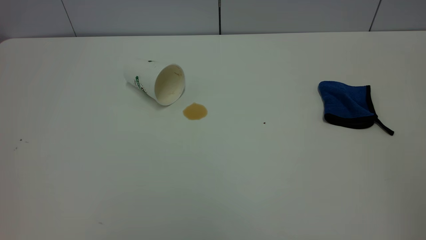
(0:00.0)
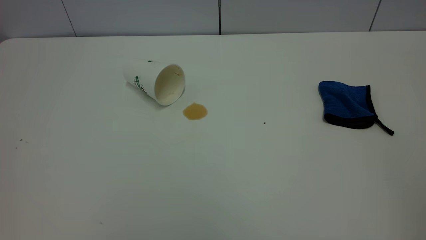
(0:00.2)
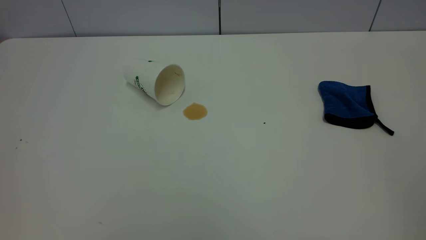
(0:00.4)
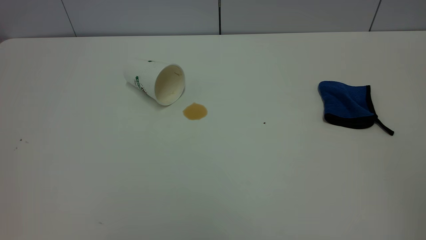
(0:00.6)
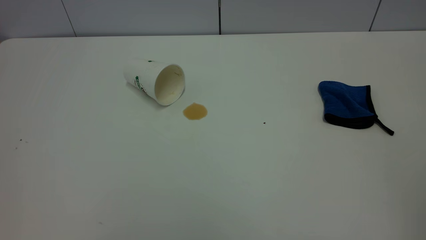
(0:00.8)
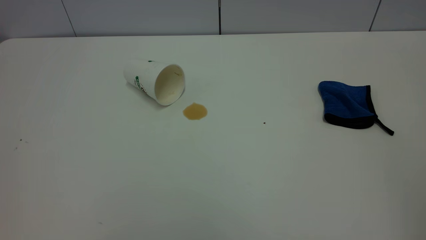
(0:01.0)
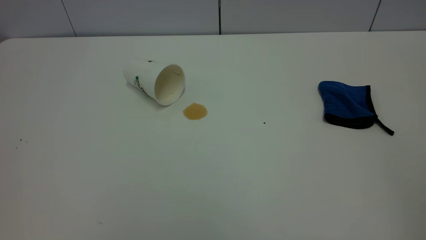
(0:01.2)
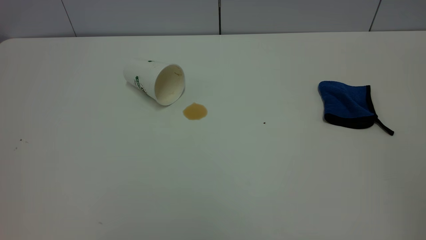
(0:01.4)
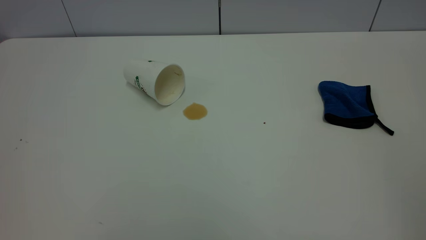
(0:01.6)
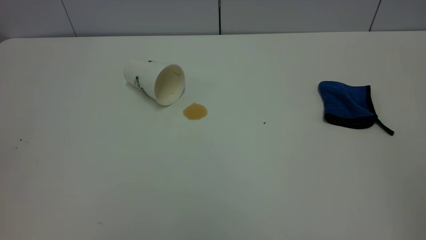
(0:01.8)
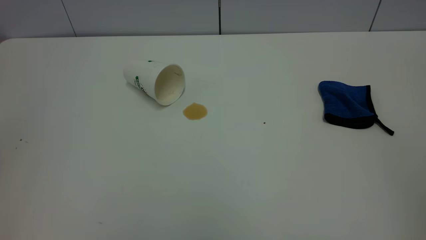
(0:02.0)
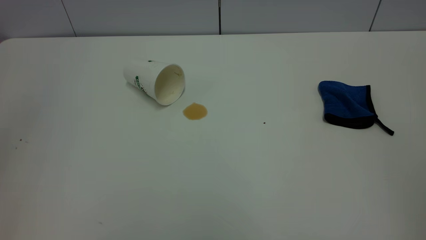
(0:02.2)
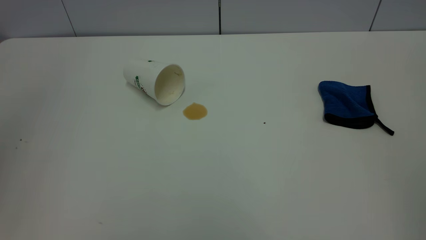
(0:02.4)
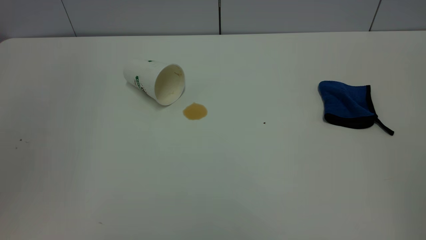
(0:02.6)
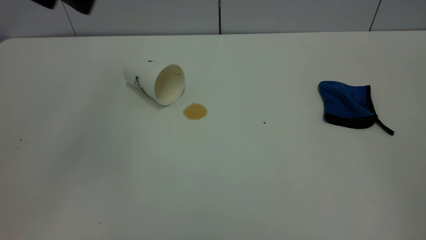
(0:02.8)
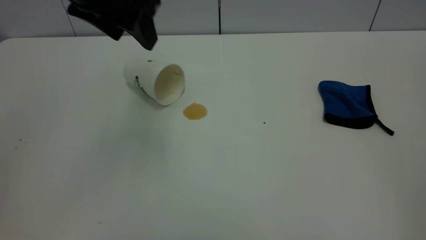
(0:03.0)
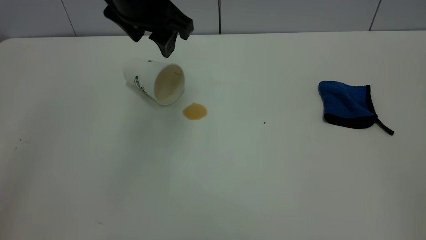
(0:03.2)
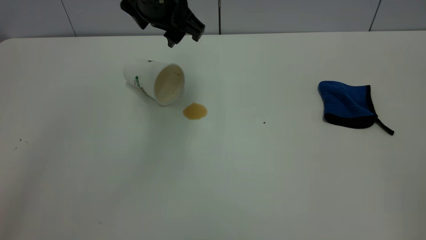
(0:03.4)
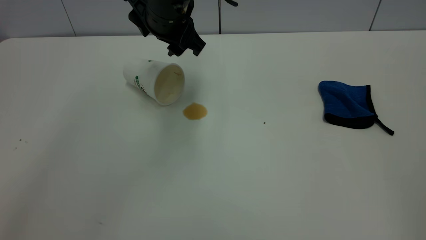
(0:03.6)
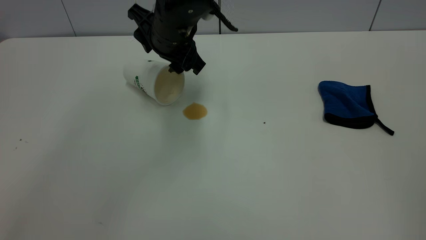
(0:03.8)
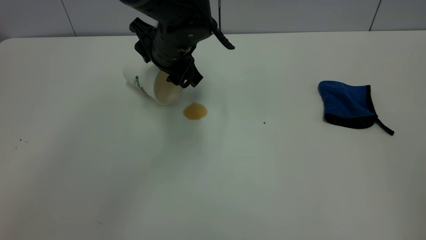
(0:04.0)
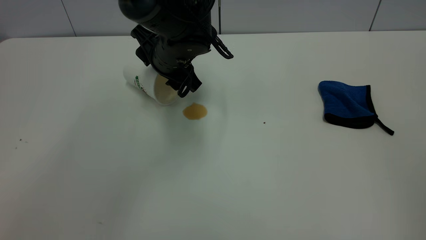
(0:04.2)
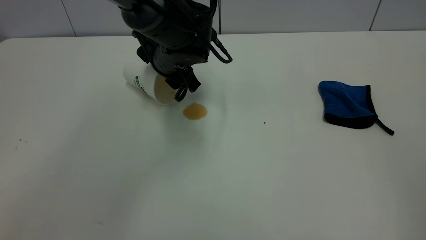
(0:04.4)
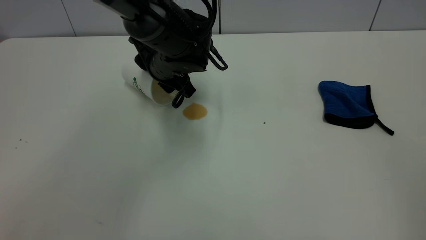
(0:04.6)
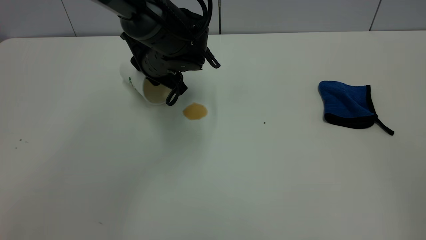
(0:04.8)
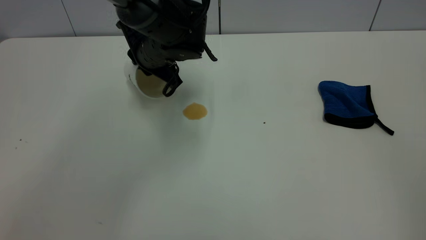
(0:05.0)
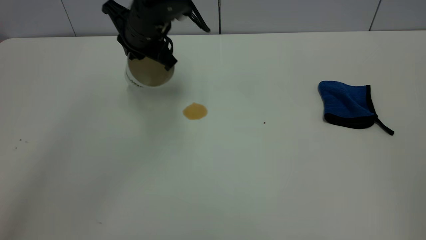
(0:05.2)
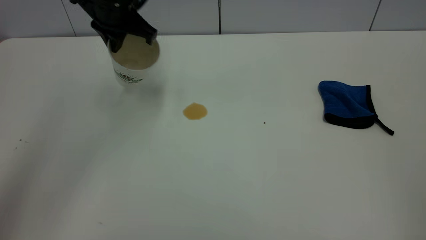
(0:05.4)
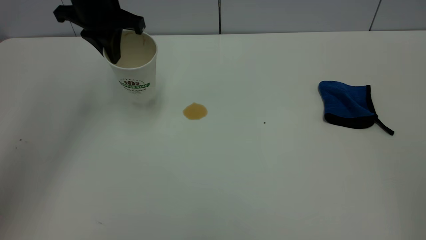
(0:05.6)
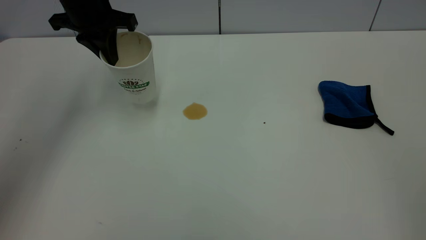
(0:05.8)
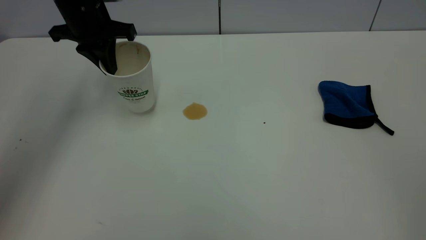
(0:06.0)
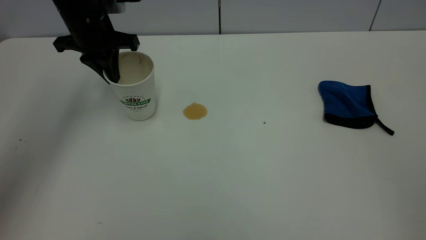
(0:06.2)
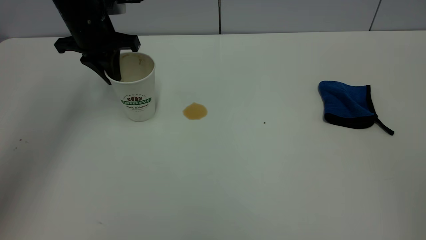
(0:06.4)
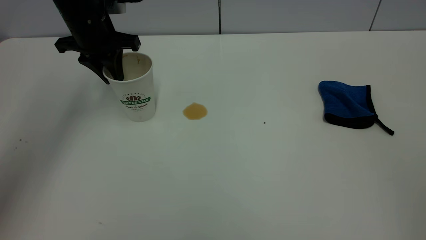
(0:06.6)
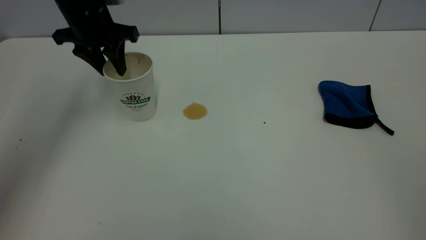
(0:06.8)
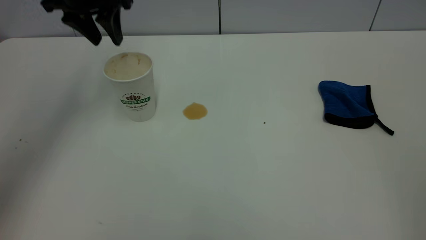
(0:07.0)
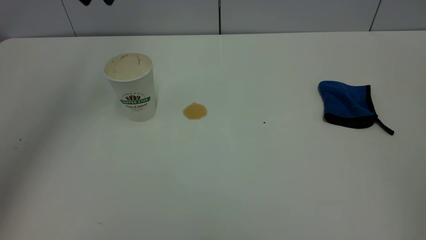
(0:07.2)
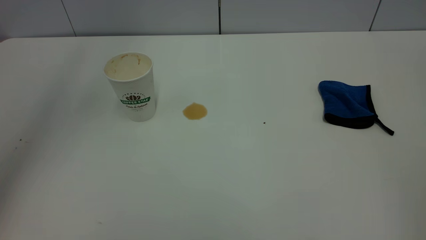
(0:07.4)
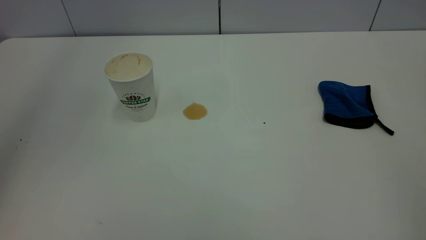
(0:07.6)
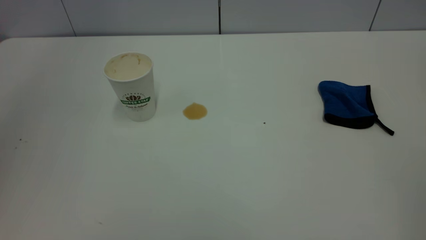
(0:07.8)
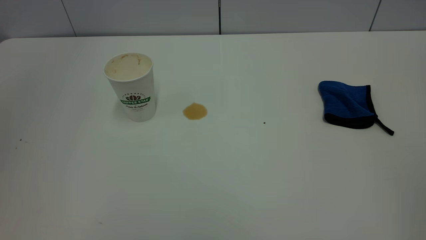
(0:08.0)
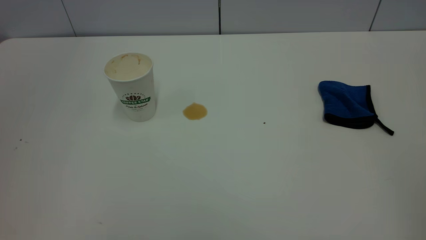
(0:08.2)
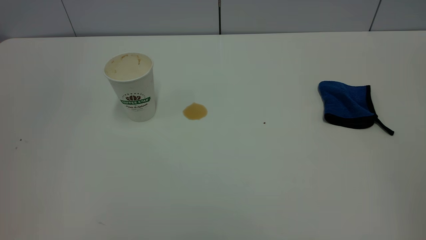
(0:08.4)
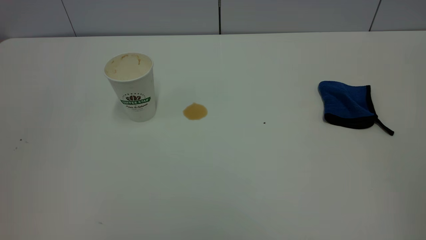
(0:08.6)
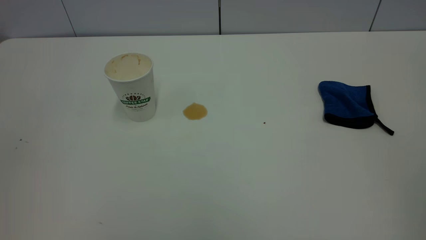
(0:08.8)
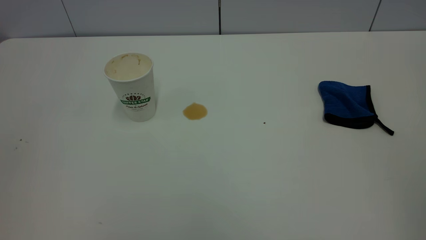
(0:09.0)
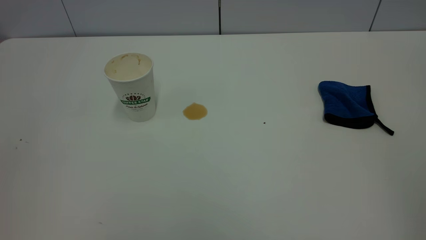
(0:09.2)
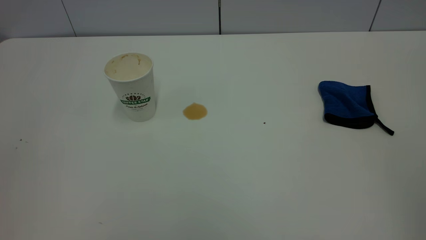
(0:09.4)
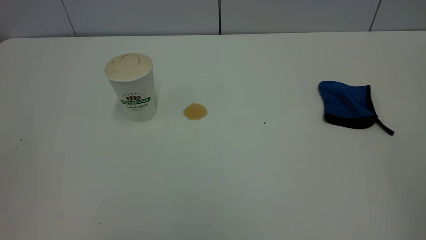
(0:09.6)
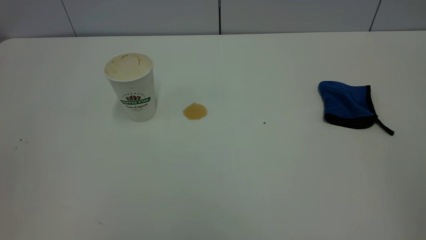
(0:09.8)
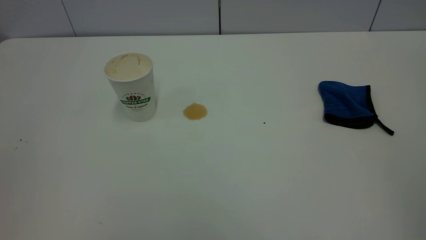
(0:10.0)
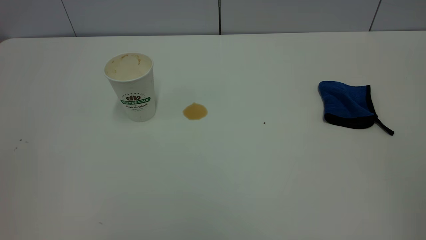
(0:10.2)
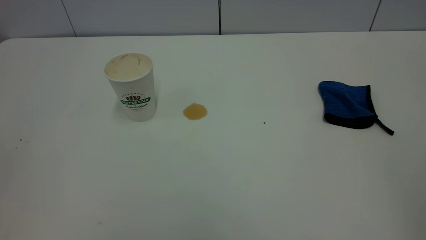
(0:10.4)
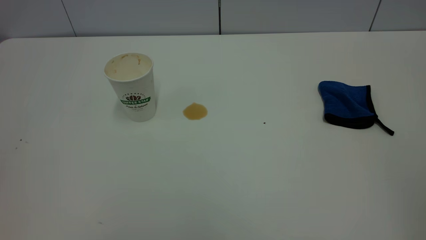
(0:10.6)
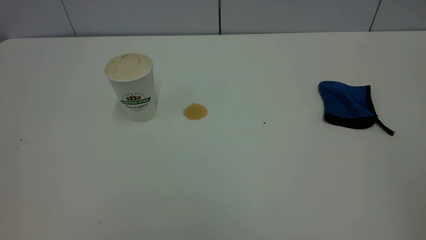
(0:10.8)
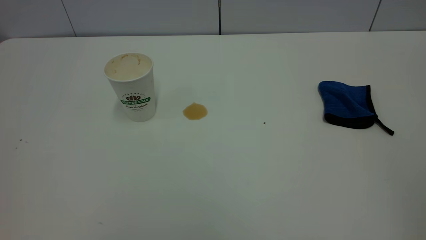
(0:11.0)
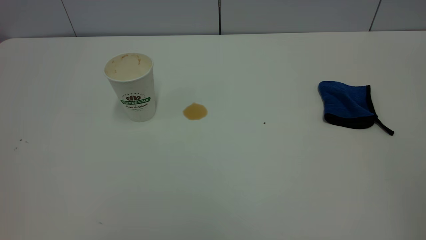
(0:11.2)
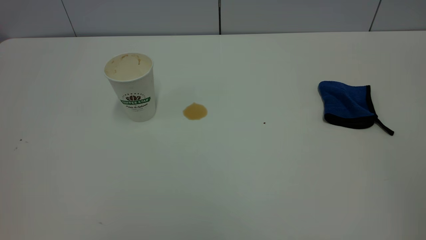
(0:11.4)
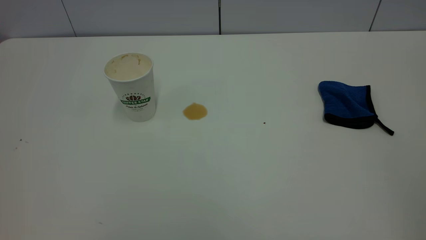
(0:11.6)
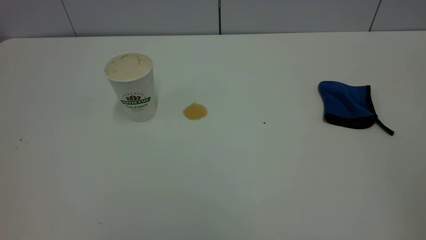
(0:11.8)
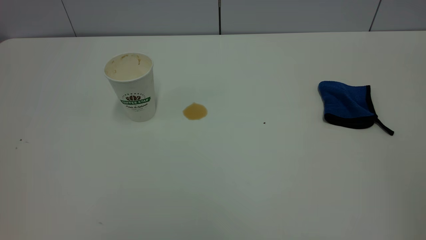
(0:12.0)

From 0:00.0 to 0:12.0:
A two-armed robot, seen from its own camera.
Task of the whole recording: the left gripper pick up the fallen cup and place it upright, the right gripper grasp the blue rag and wipe the tea stain on the table, the right gripper put the blue rag back in its original position.
Step, from 0:00.0 to 0:06.8: Stand the paper cup upright.
From 0:00.0 to 0:01.6: Neither gripper changes place.
From 0:01.6 to 0:03.0: The left gripper shifts approximately 40 cm forward and to the right.
From 0:03.0 to 0:04.4: The left gripper travels downward and forward by about 20 cm.
From 0:04.4 to 0:06.0: The left gripper goes approximately 15 cm to the left and upward, and closes.
From 0:06.0 to 0:07.6: The left gripper heads upward and backward, covering about 35 cm, and opens its fingers.

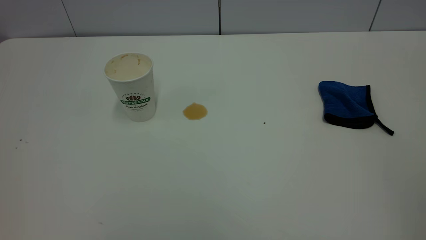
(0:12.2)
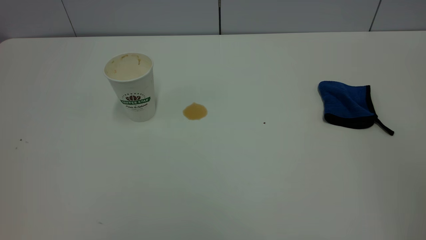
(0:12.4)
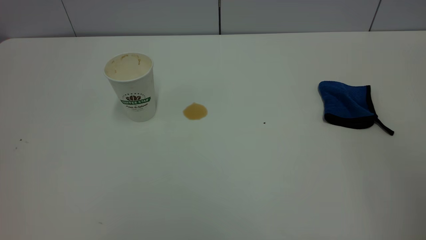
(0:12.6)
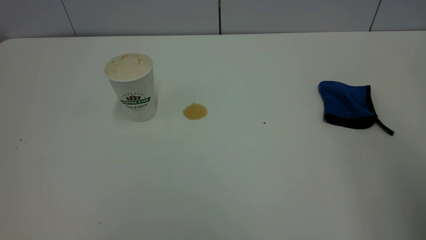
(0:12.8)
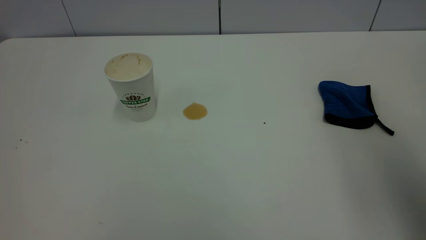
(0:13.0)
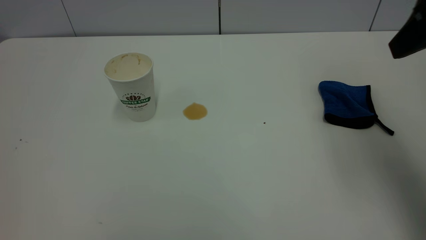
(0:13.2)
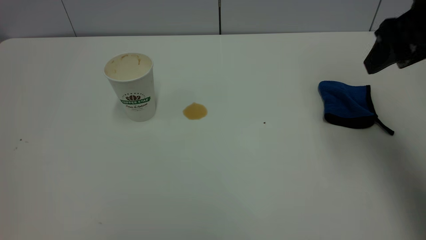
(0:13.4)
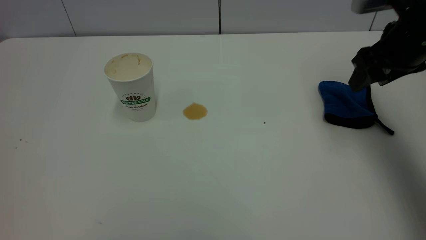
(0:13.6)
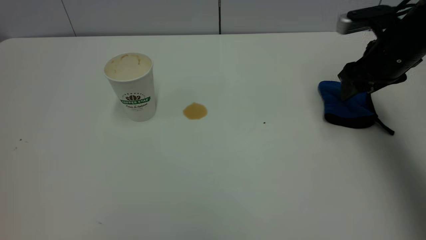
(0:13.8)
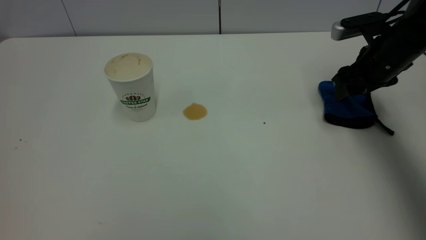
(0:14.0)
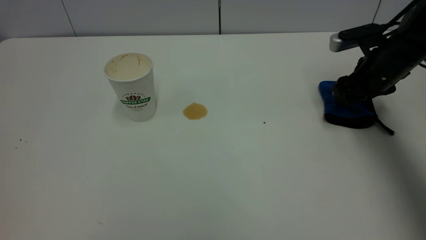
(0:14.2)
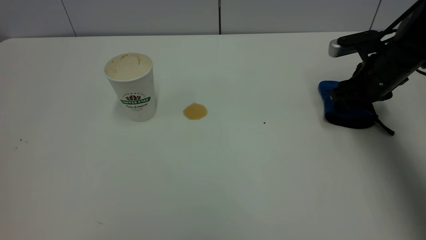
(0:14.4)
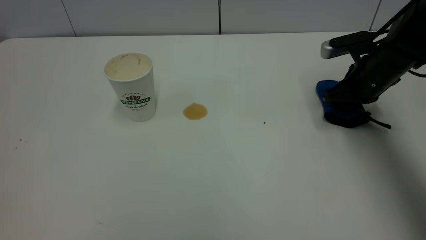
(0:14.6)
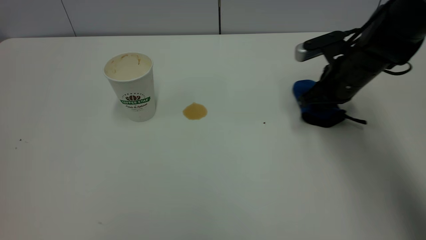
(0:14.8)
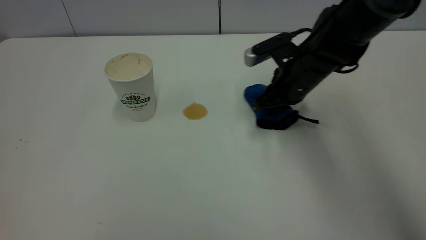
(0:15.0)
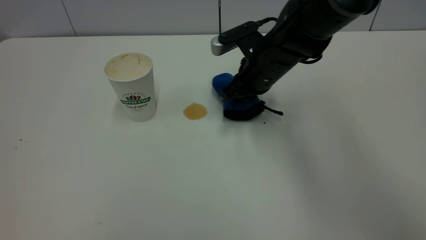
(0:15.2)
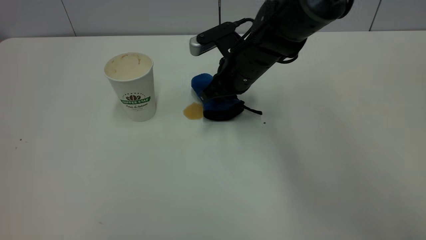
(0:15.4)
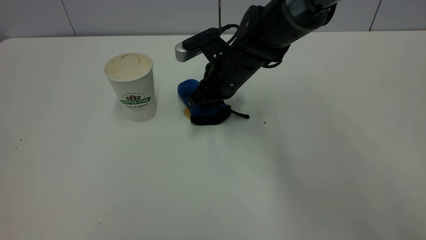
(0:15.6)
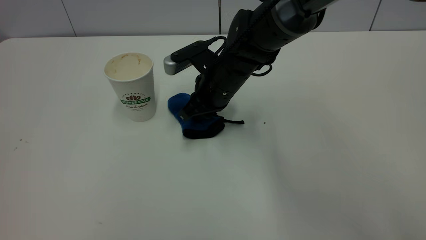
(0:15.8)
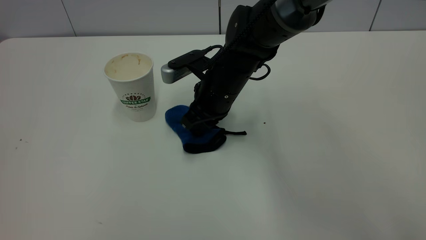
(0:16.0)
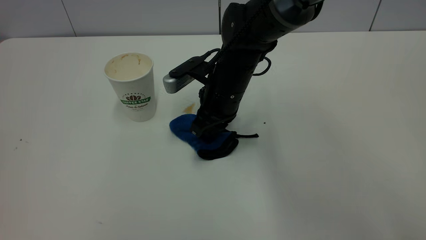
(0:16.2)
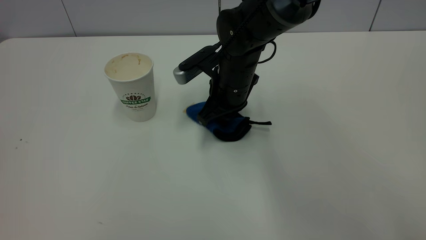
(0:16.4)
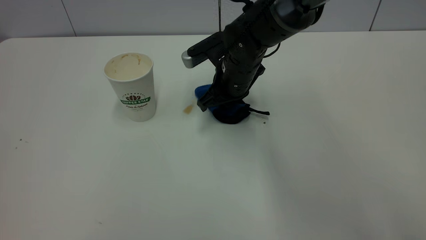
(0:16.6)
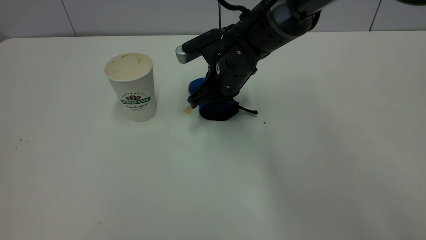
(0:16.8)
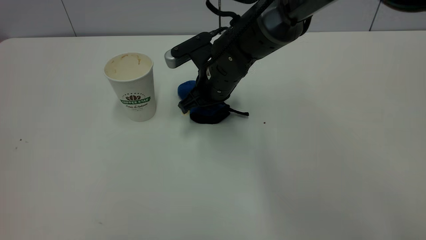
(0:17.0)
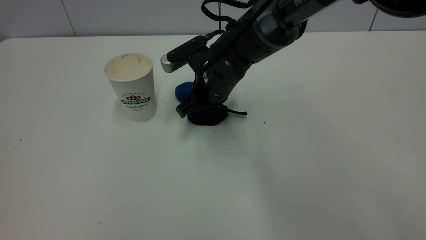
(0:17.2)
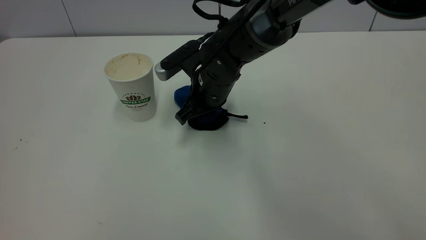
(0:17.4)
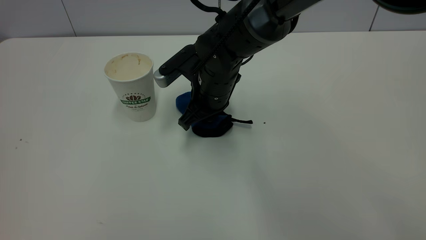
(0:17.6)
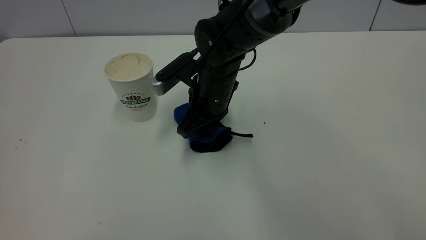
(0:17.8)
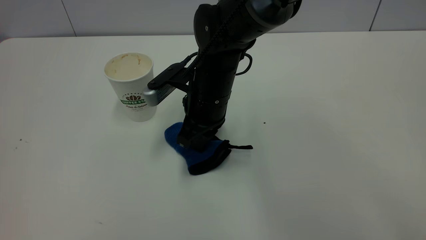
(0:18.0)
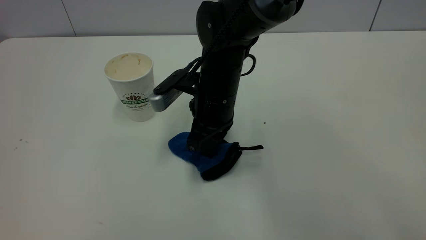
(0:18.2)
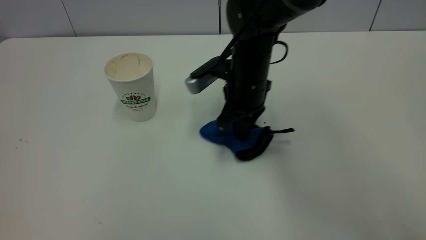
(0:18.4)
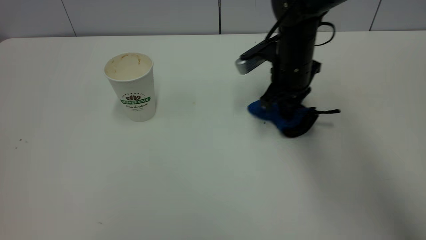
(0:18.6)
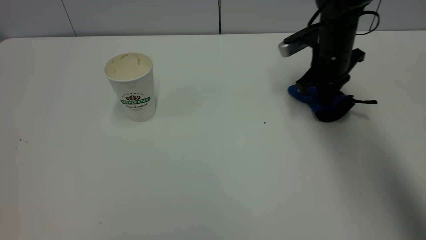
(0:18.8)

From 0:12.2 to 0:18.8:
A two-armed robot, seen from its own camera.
Task of the whole recording: the left gripper pick up the fallen cup and place it upright, the right gripper grasp the blue rag and wipe the tea stain on the table, the right gripper put the blue rag back in its original position.
From 0:12.2 to 0:13.8: The right gripper travels forward and downward by roughly 50 cm.
From 0:13.8 to 0:15.4: The right gripper travels to the left by approximately 20 cm, and closes its fingers.
From 0:15.4 to 0:17.2: The right gripper is displaced to the left by some 5 cm.
From 0:17.2 to 0:18.8: The right gripper goes roughly 20 cm to the right.
